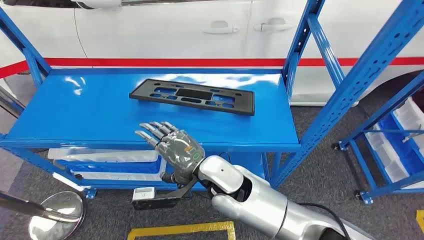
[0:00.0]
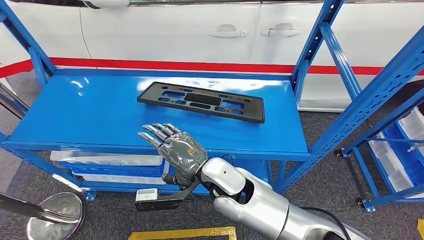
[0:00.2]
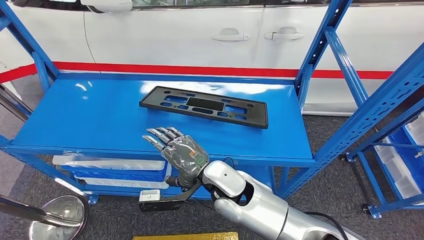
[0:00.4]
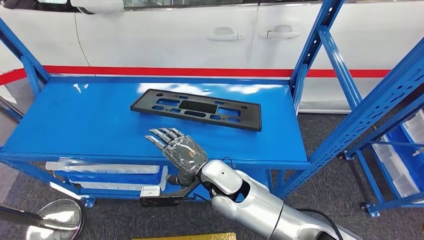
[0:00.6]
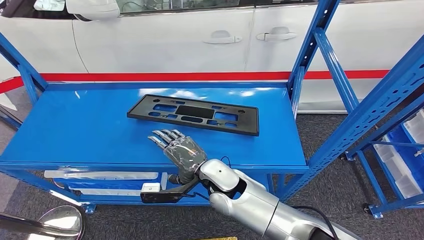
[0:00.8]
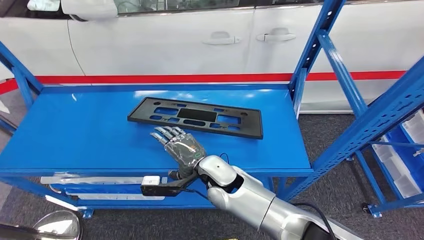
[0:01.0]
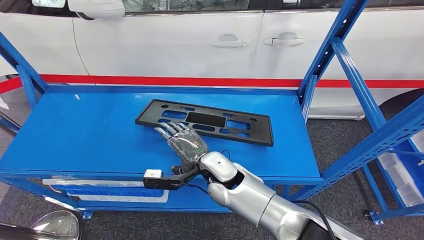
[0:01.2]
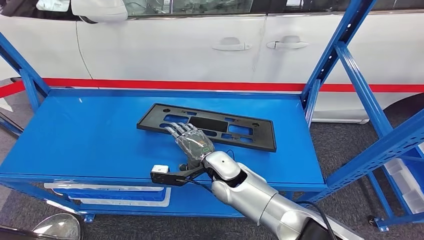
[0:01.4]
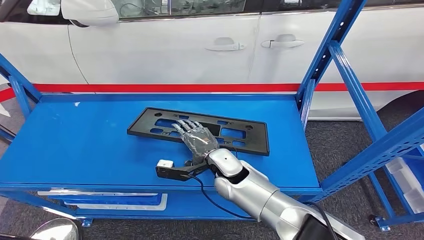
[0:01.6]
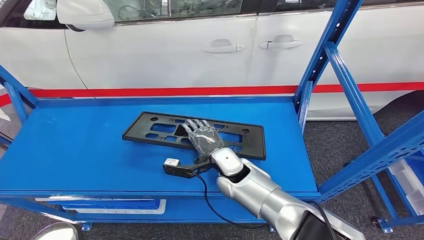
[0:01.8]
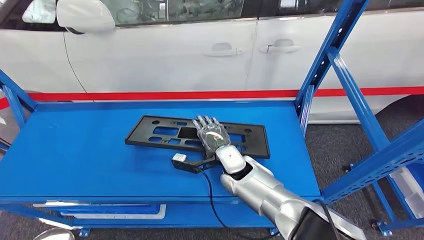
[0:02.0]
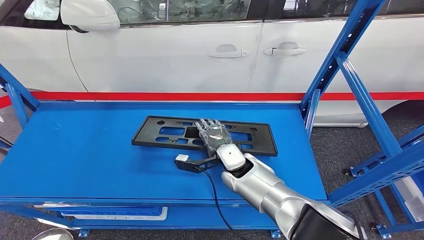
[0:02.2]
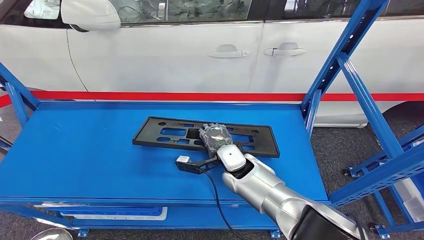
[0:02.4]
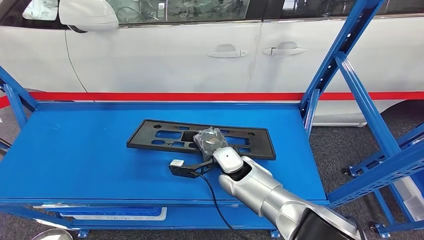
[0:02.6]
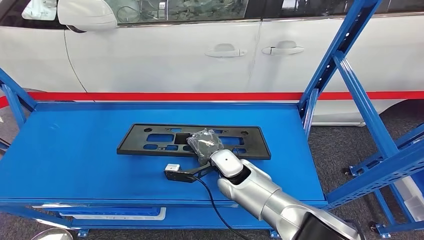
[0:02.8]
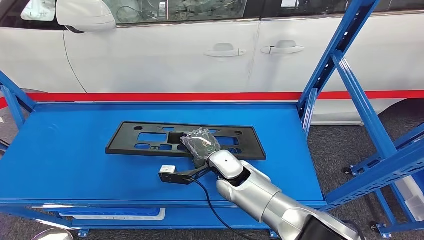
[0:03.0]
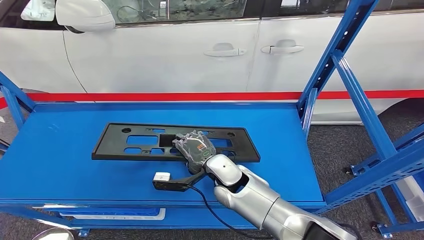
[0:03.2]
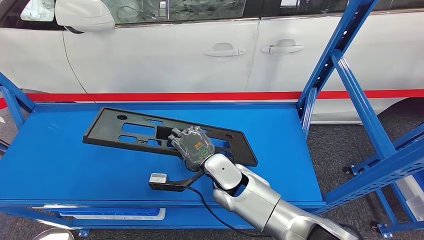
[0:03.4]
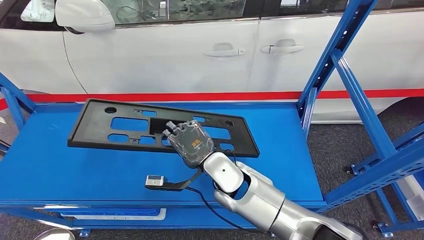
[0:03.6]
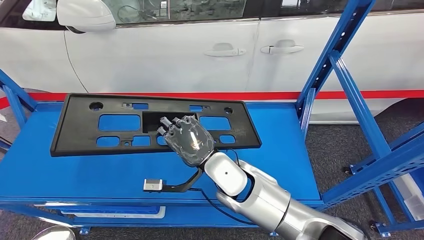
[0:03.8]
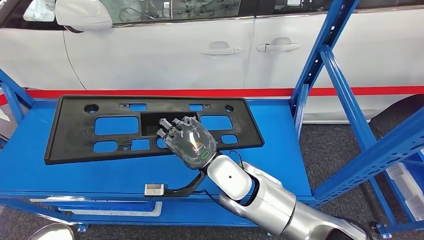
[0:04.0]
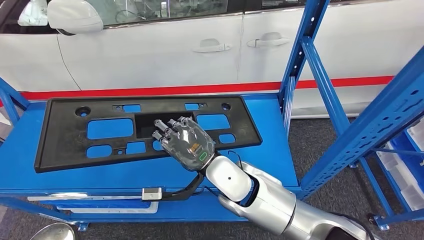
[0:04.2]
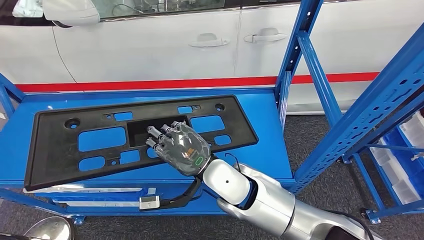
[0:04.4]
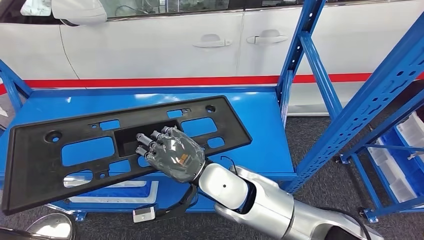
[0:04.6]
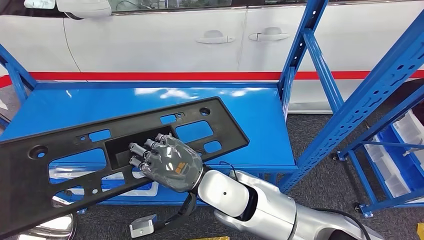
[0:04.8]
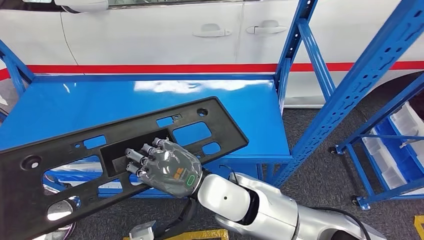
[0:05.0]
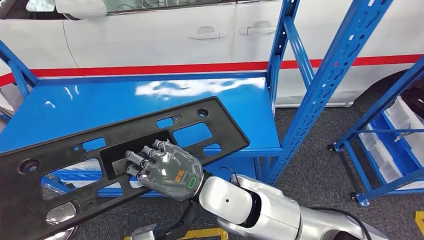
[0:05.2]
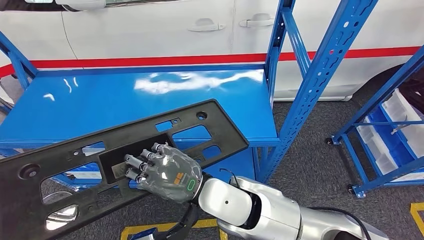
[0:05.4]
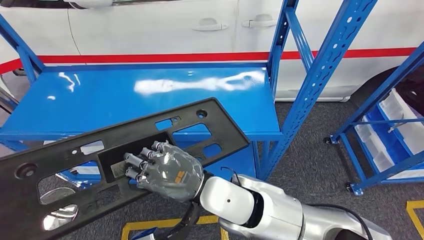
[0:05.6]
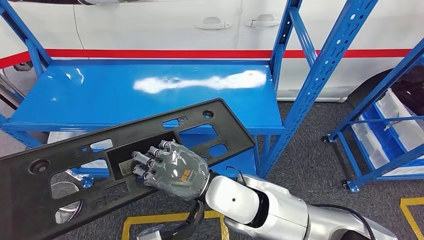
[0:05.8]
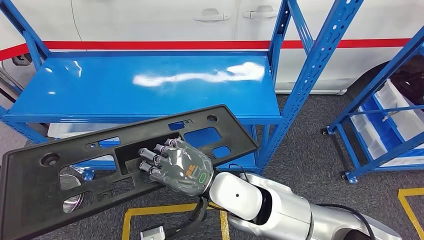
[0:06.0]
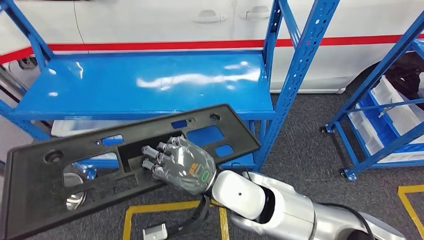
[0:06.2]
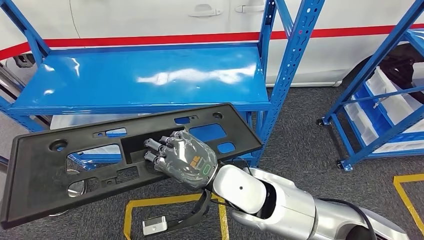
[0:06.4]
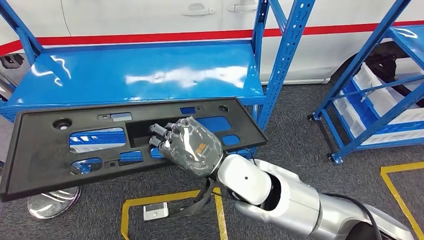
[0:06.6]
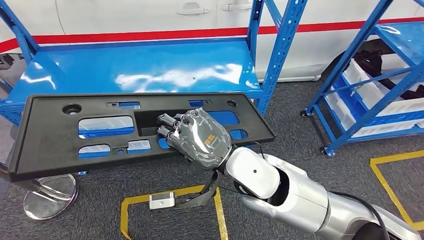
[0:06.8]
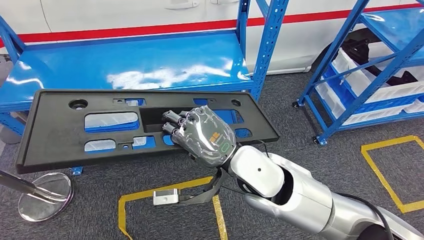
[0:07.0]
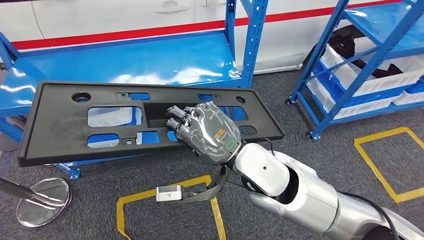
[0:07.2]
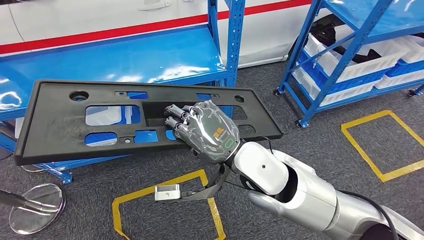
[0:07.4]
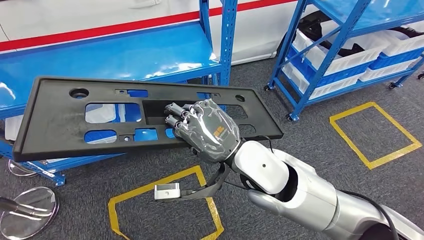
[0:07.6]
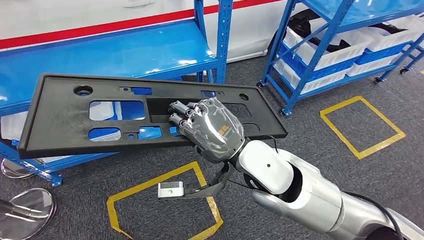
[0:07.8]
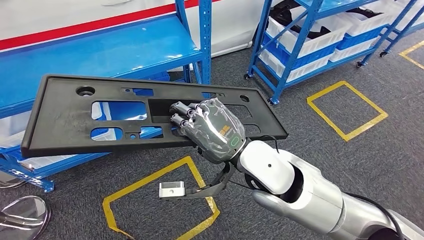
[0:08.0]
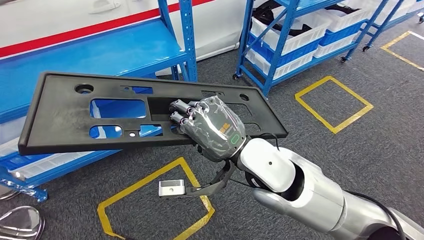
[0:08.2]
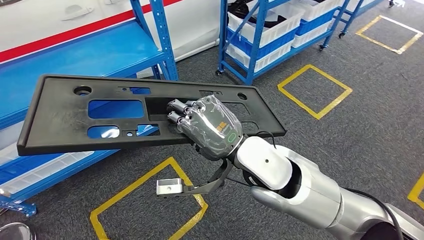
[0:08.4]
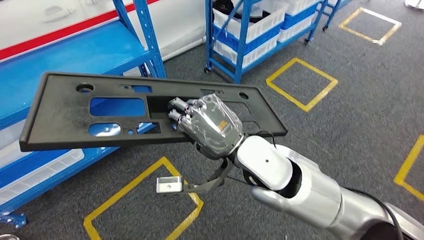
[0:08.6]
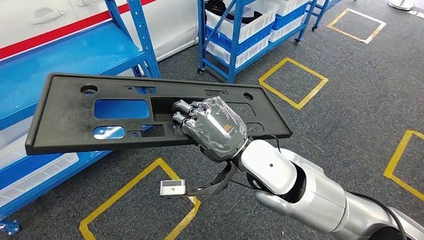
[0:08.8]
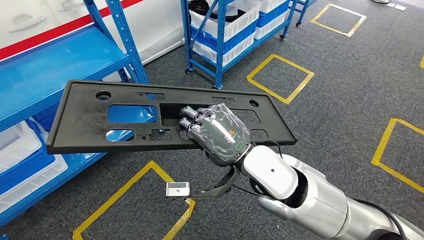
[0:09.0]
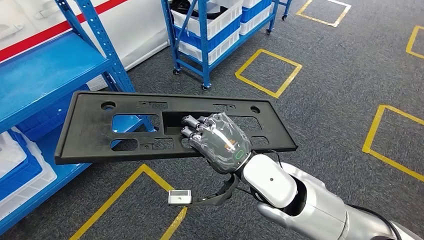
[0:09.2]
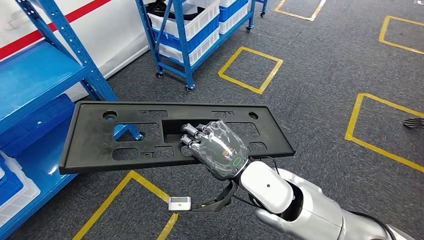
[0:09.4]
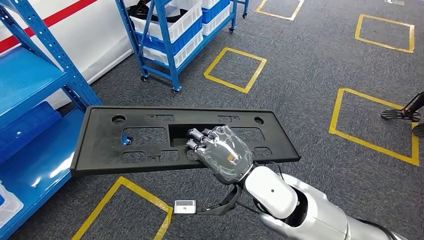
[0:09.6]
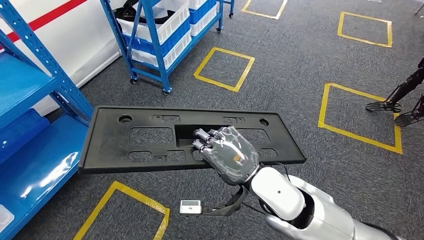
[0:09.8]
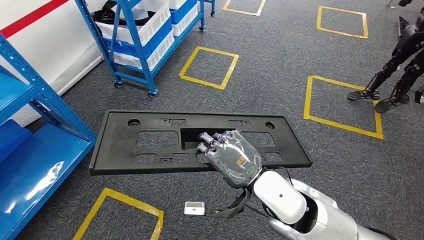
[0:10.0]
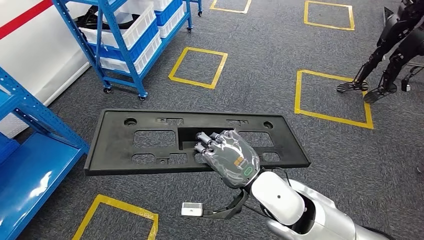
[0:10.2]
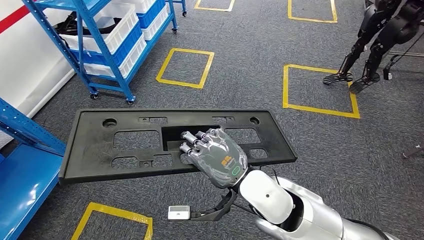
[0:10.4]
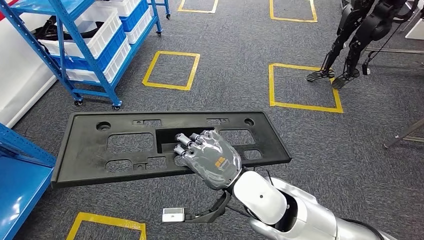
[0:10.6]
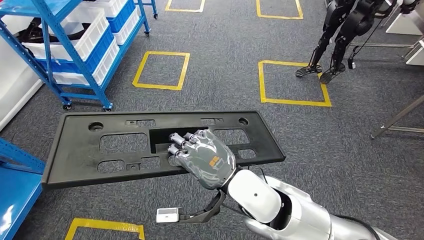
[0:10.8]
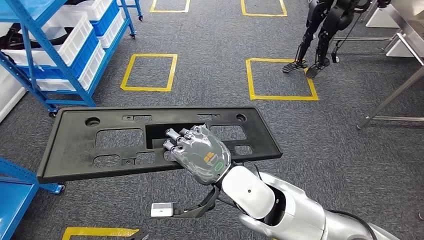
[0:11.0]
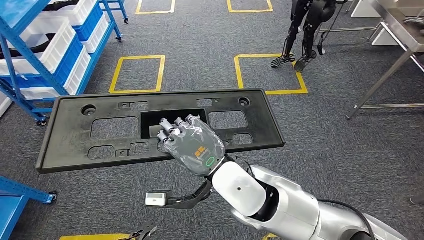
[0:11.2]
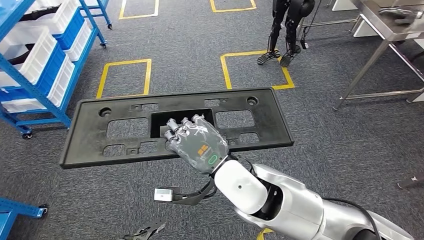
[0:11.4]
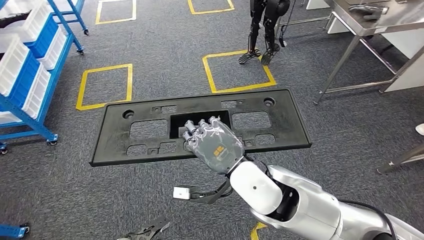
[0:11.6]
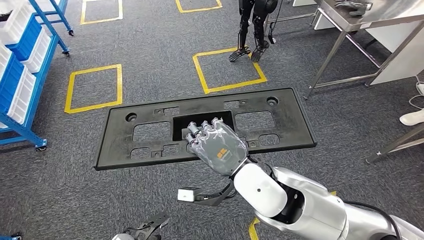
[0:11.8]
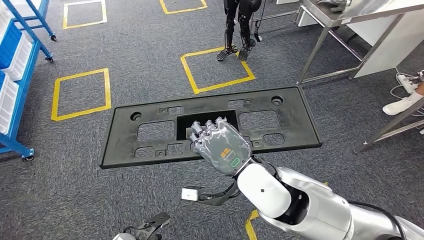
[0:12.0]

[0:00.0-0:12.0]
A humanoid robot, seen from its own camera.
Step, 0:00.0 to 0:08.2: Pick up the large material from the shelf.

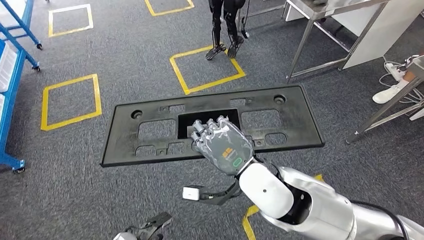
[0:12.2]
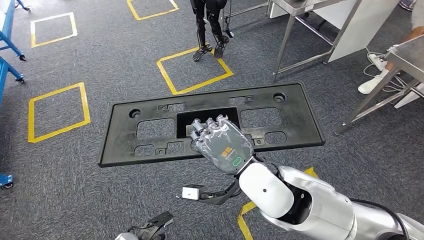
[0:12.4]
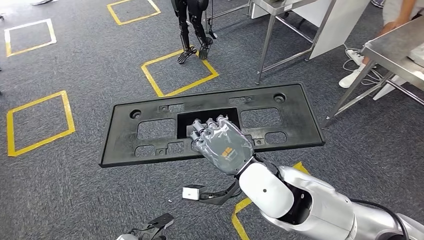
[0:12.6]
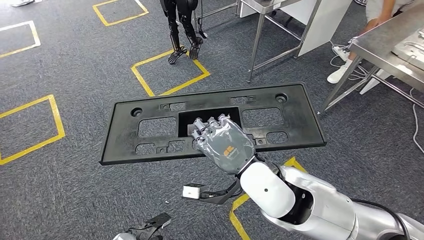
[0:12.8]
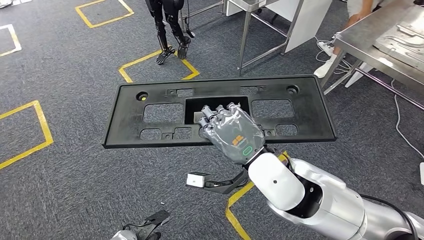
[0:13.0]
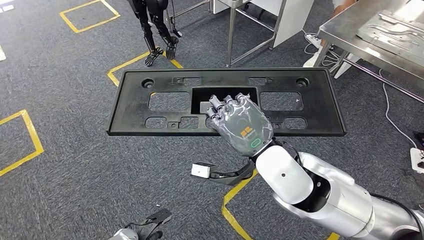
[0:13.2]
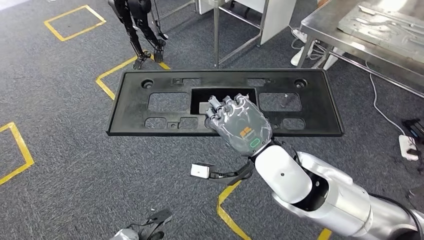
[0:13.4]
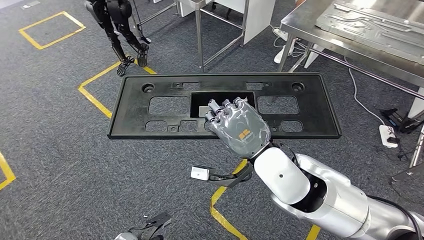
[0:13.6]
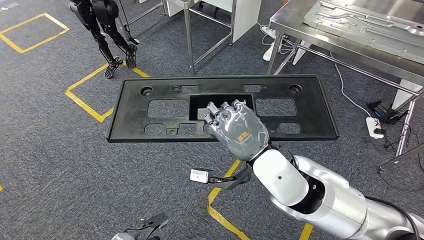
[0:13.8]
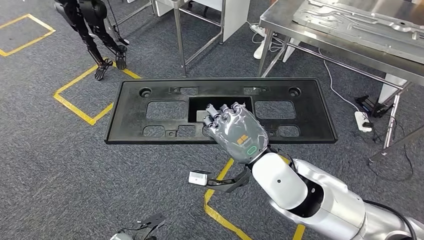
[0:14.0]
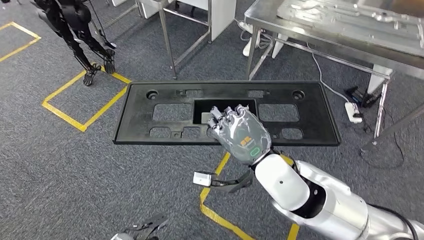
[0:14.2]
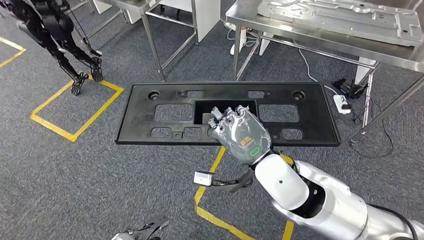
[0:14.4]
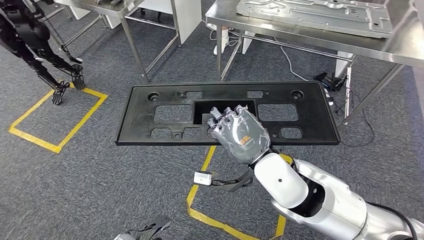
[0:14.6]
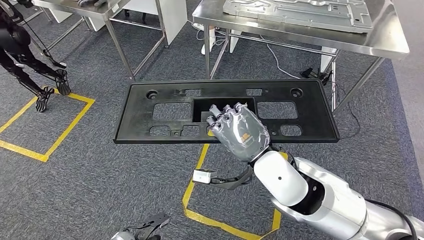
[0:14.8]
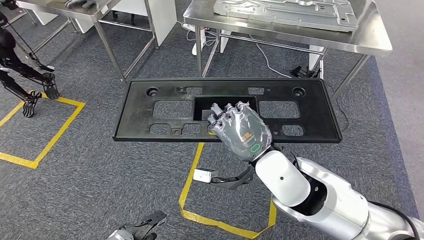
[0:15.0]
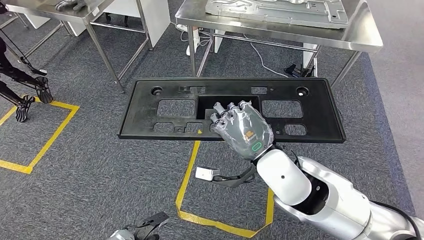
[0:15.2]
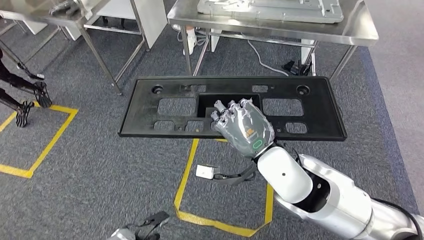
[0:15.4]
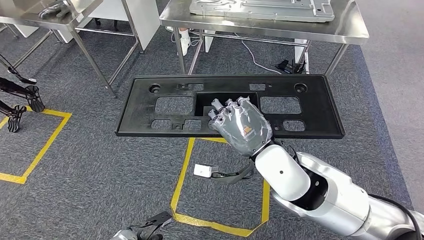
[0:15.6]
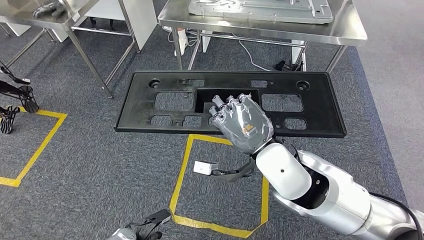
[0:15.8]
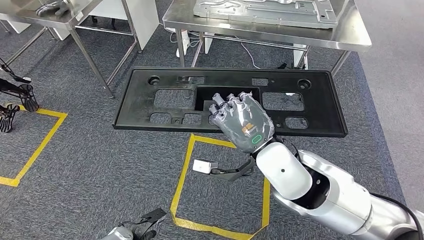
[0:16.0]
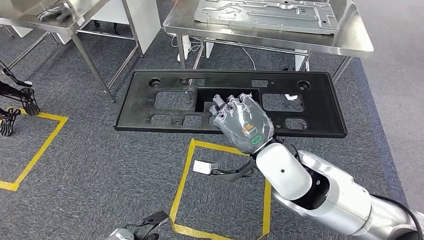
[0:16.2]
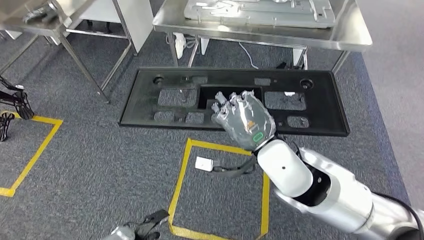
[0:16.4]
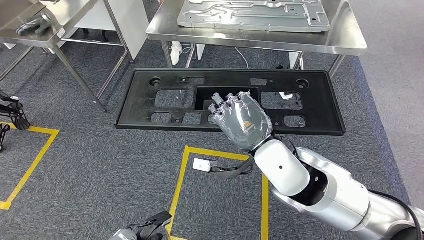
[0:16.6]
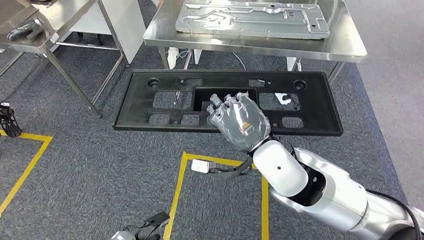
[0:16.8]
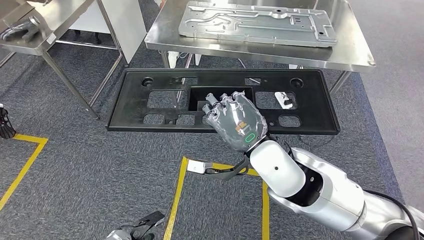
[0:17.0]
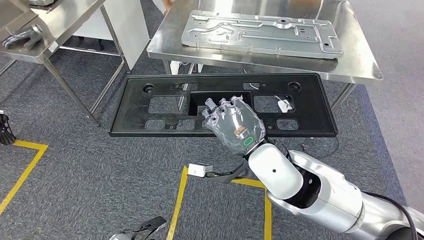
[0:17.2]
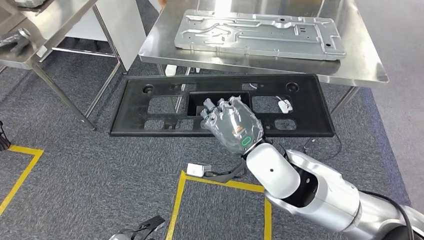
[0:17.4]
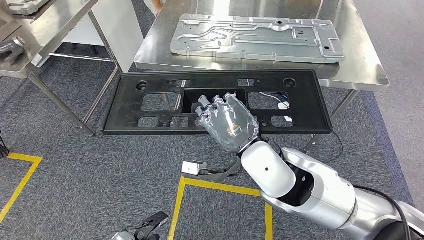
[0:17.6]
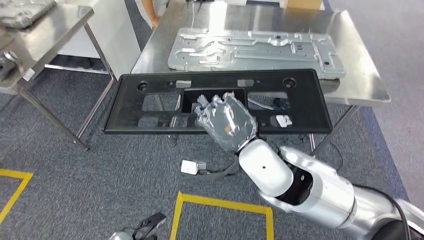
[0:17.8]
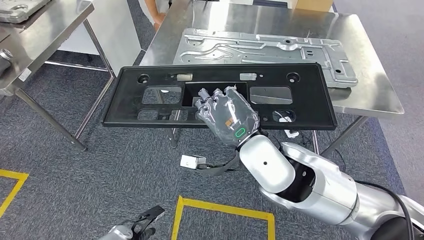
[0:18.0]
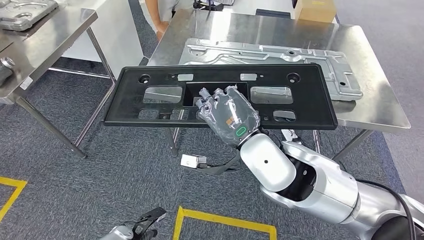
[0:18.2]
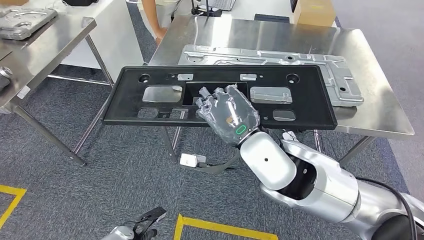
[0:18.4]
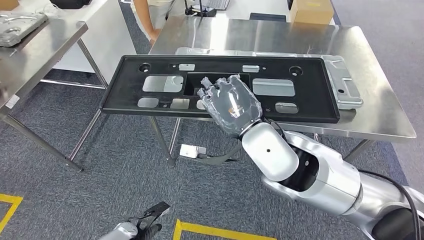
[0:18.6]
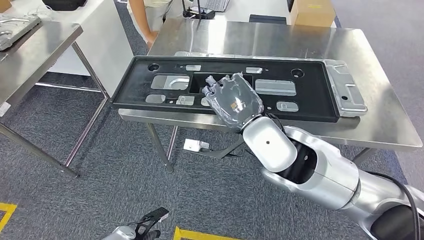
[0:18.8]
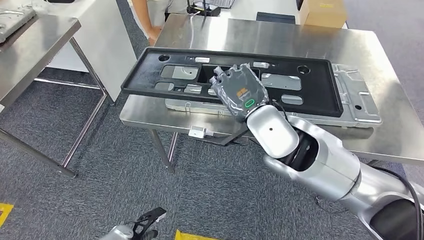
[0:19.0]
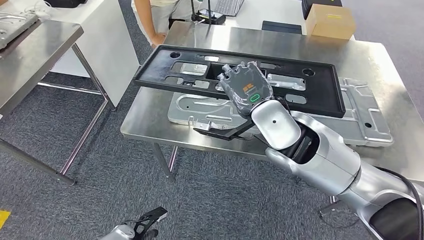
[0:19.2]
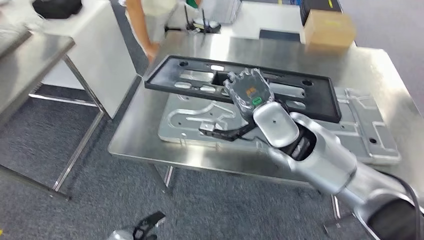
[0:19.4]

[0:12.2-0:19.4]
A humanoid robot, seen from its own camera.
Step, 0:12.2 to 0:18.6: Move the large material to the workbench.
